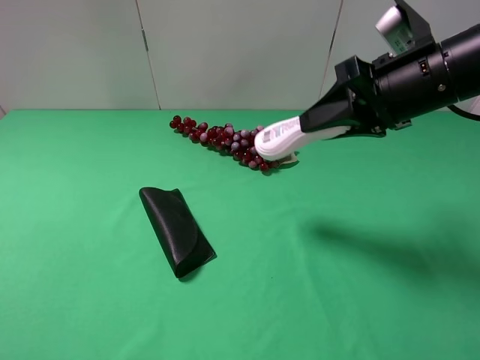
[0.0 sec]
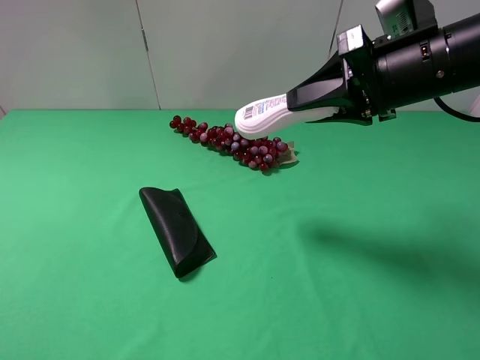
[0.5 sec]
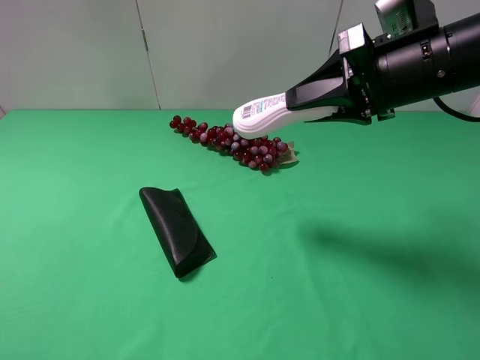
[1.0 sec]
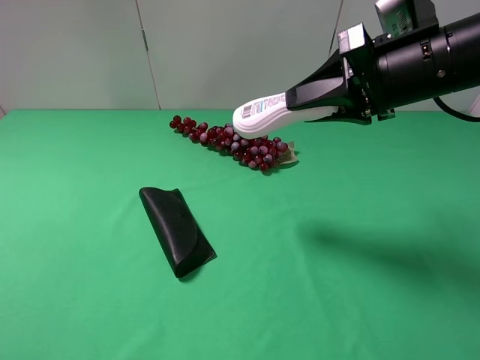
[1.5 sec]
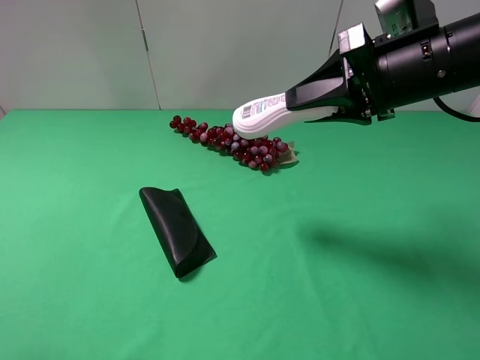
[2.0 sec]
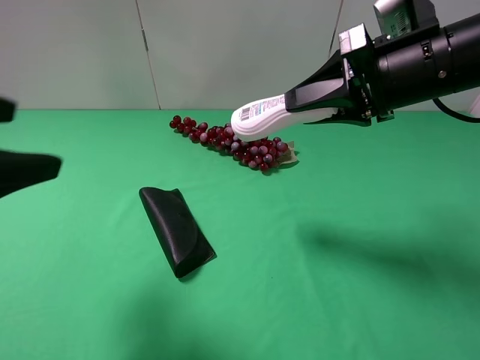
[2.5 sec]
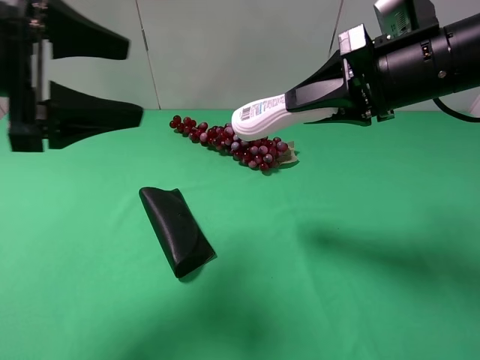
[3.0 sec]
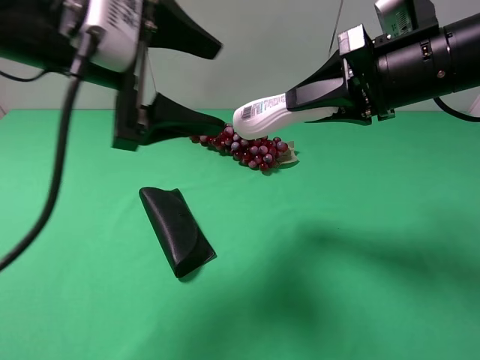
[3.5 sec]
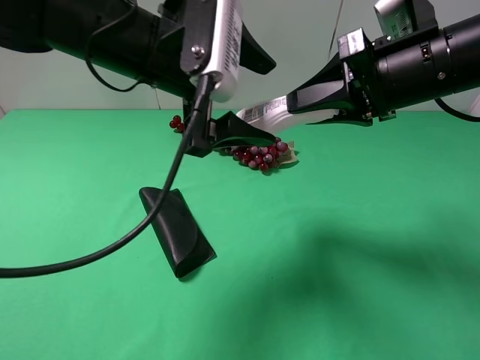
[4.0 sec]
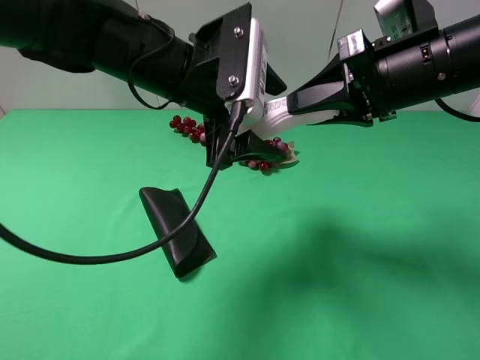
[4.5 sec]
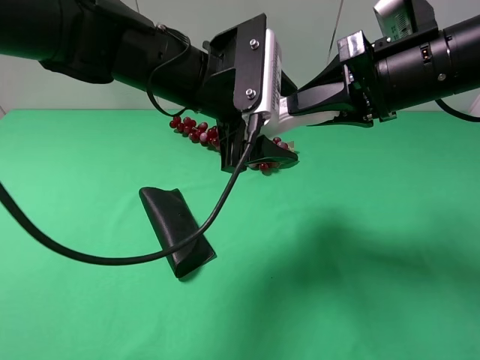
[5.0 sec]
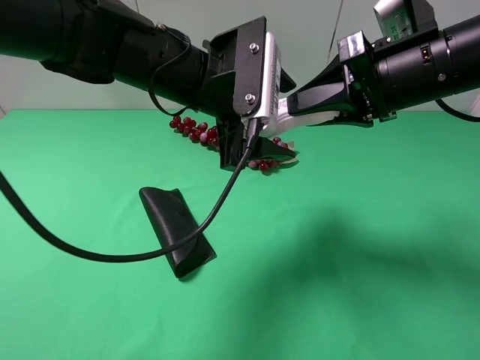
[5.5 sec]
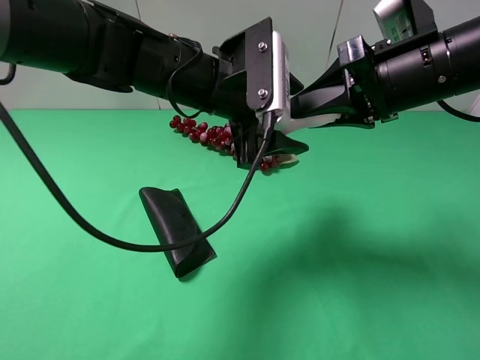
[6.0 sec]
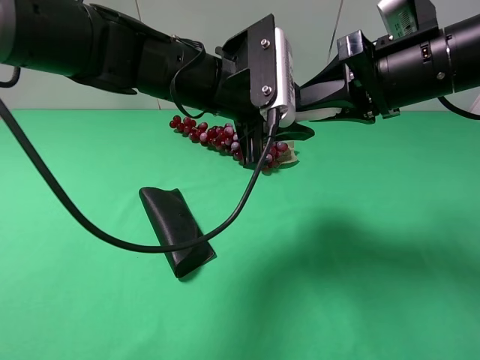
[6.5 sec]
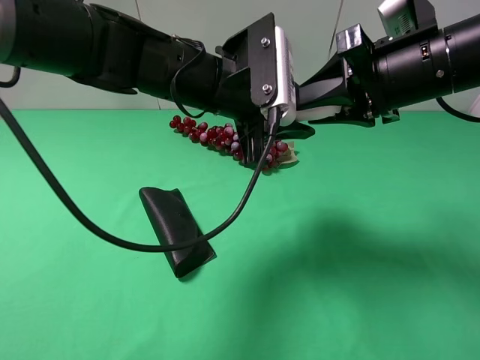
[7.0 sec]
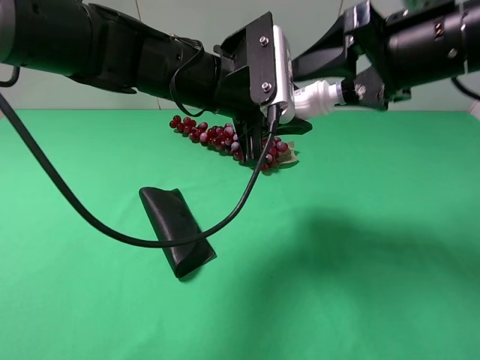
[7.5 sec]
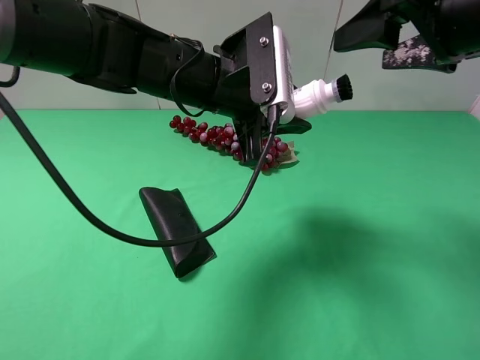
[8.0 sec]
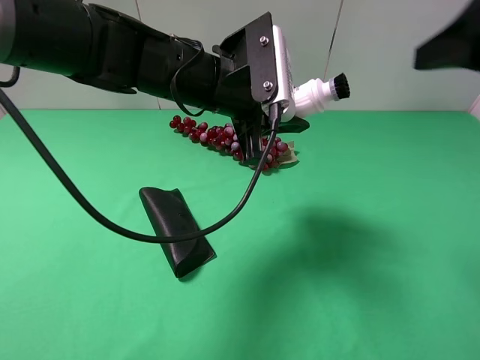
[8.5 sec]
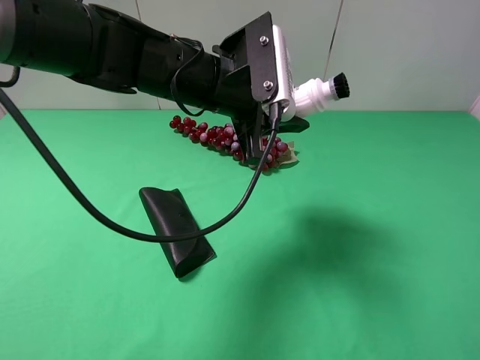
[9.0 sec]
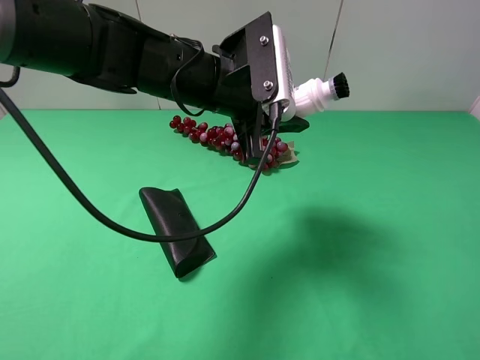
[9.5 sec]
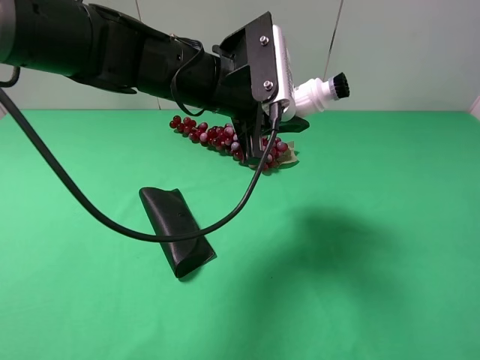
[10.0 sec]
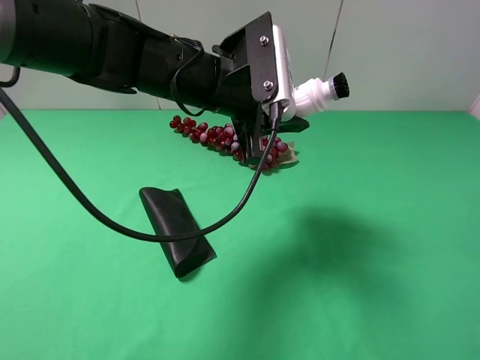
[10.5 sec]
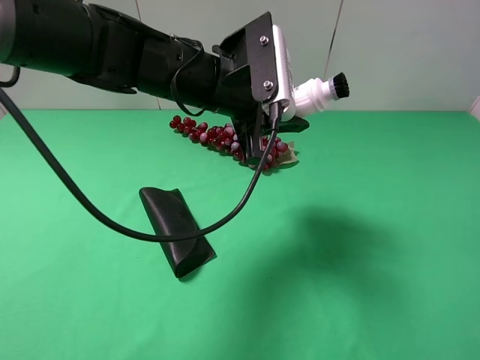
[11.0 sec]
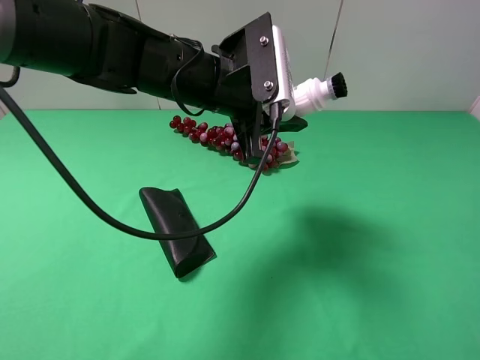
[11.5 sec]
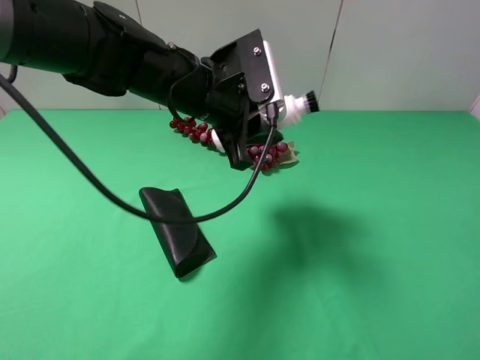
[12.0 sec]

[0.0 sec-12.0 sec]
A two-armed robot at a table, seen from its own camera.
Task of the whole recording: use the right gripper to pick up the item and transfer it from the right gripper to the left gripper.
Step, 0.0 sec to 8.0 sec: Pass the shampoo to the left gripper.
0.0 sec to 2.0 sec: The grippers stay close to where they were, moving slightly.
2.0 sec to 4.0 sec: The left gripper is displaced forward and to the right by roughly 35 cm.
4.0 sec to 6.0 sec: The left gripper moves about 5 cm.
6.0 sec to 8.0 sec: The right gripper travels upward by roughly 5 cm, and opens; the left gripper closes.
8.0 sec to 10.0 sec: The right gripper goes approximately 25 cm backward.
10.0 sec to 12.0 sec: There are only small adjustments of the grippers.

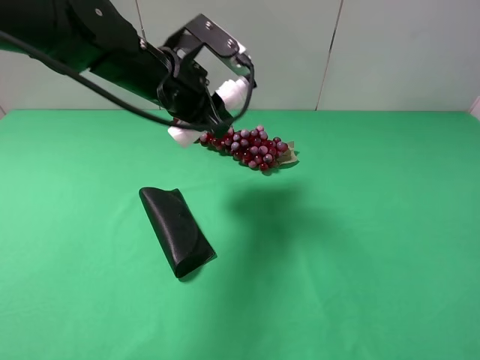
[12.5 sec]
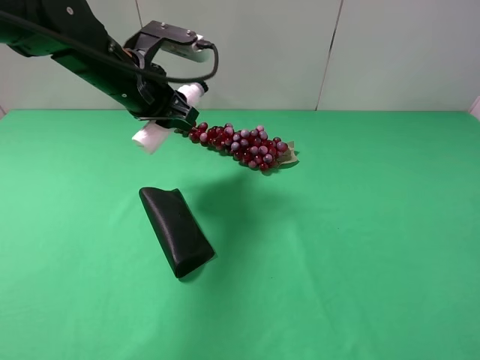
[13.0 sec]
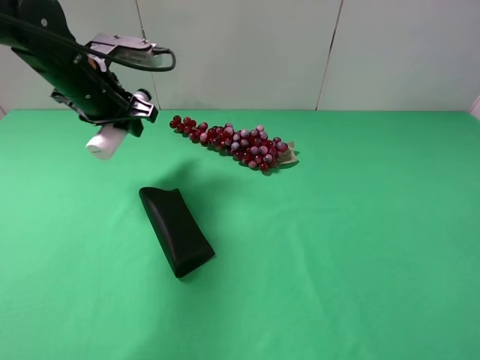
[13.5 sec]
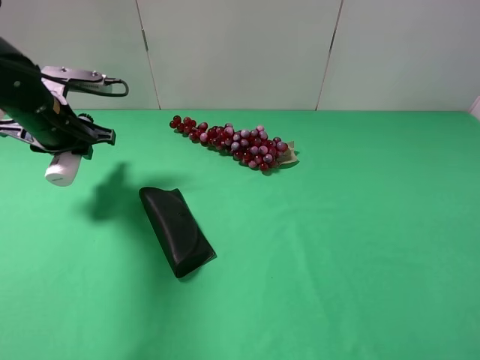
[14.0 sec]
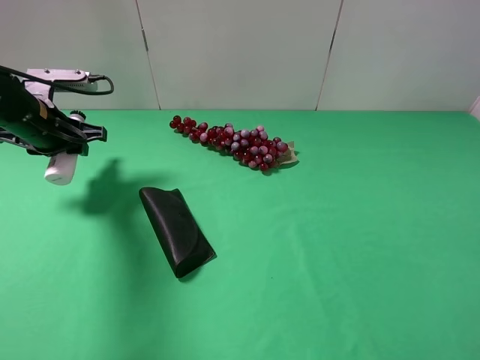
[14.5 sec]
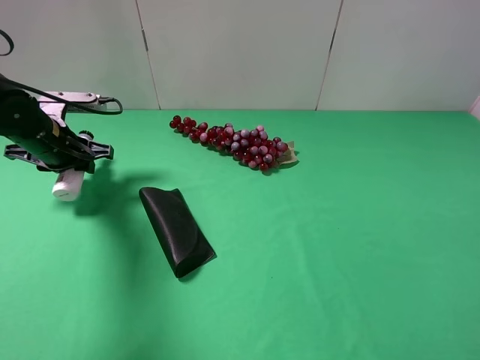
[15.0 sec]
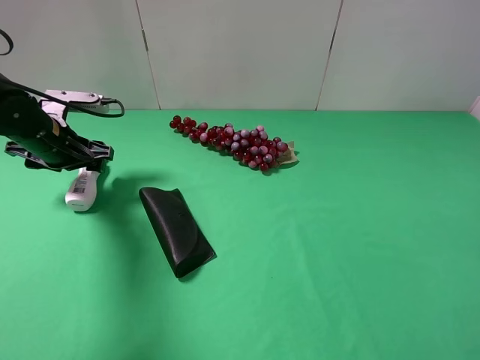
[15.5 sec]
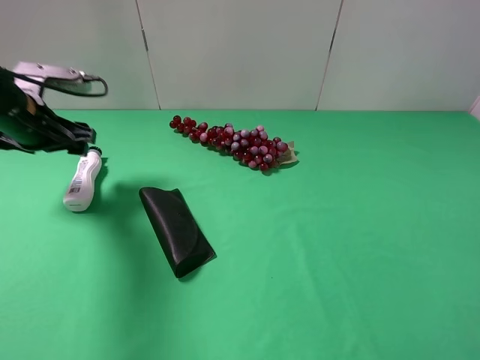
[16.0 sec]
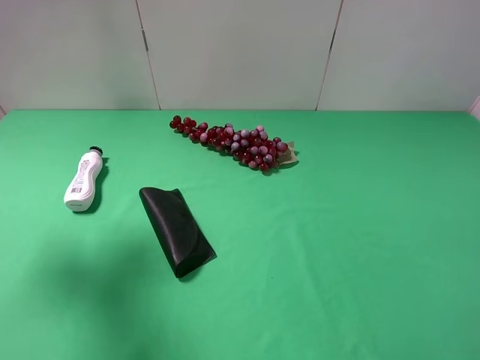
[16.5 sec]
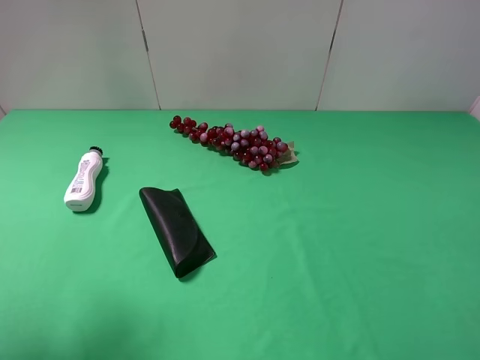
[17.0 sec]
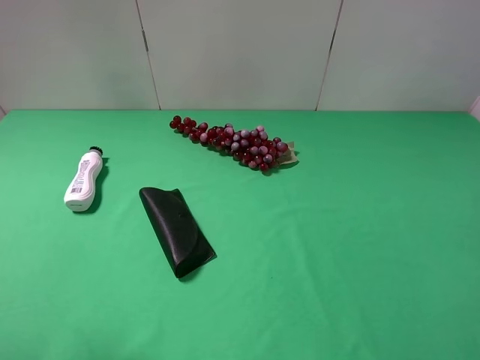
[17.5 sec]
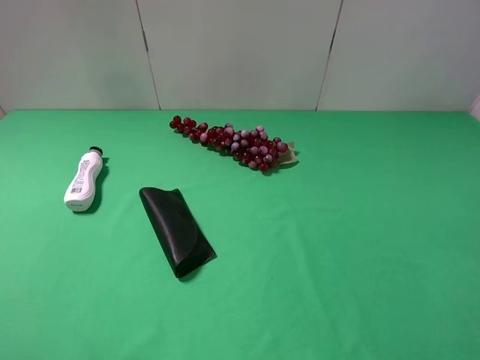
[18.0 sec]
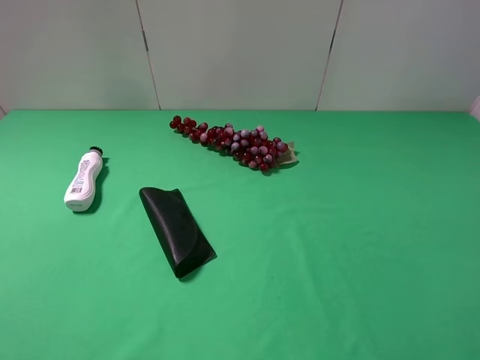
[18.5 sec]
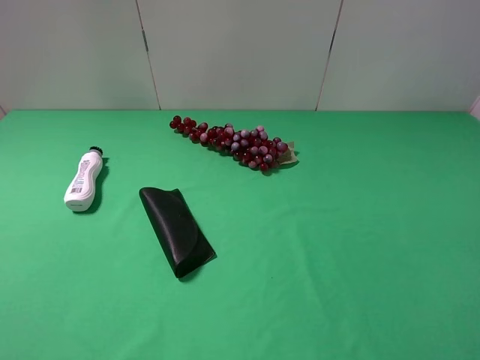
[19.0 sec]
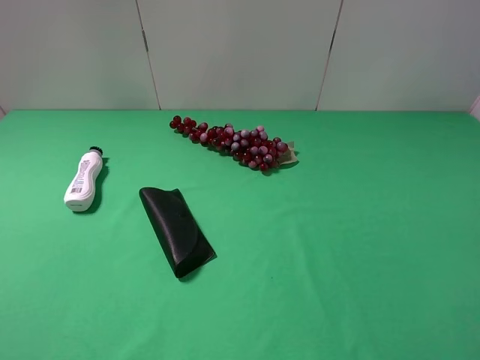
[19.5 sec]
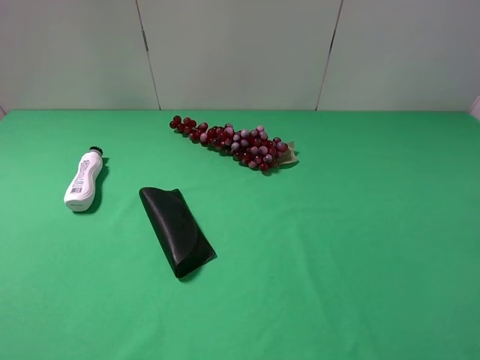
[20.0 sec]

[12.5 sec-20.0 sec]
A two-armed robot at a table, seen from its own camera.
Task of the whole recording: use the right gripper to pick up the item and transfer it from the right gripper to the left gripper.
Step, 12.5 sec to 15.5 sec: The left gripper places shampoo on the left side of the table.
12.5 sec to 14.5 sec: The left gripper moves to the left and downward, about 20 cm.
14.5 sec to 16.5 sec: The left gripper shifts about 20 cm upward and backward, and opens.
16.5 sec to 18.0 sec: The left gripper shifts some 20 cm backward.
